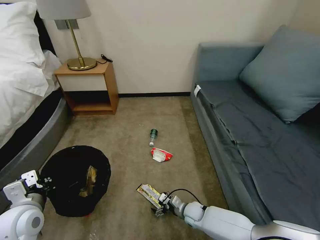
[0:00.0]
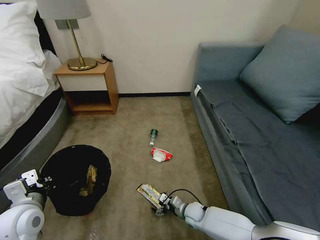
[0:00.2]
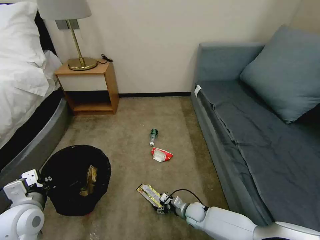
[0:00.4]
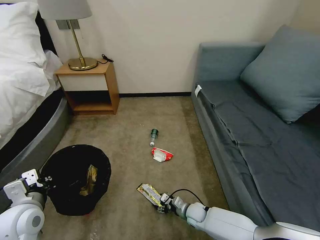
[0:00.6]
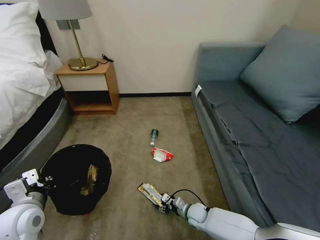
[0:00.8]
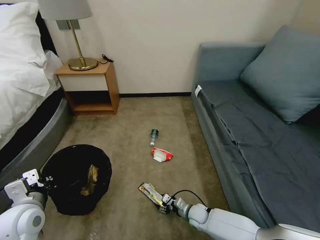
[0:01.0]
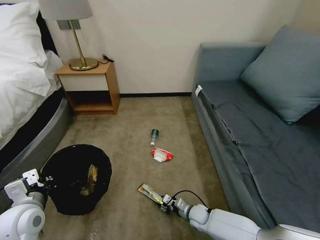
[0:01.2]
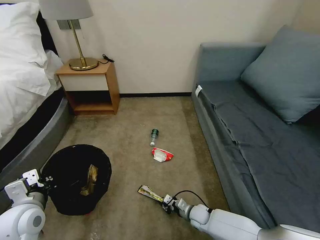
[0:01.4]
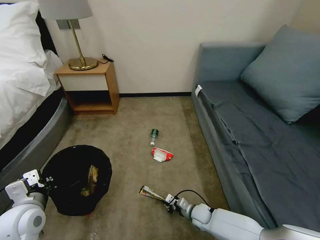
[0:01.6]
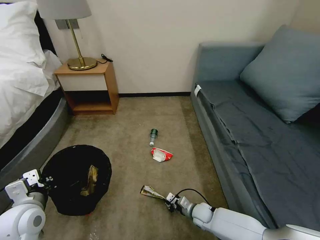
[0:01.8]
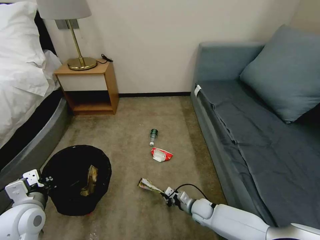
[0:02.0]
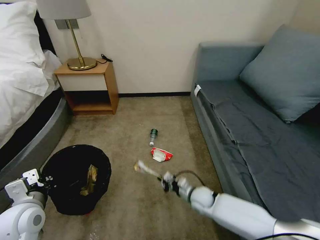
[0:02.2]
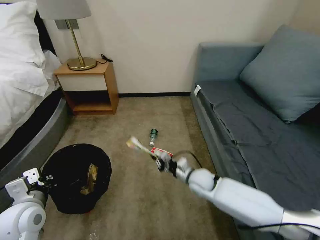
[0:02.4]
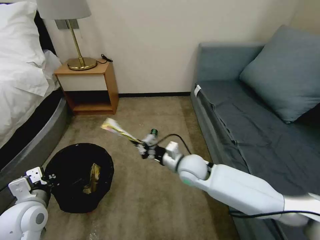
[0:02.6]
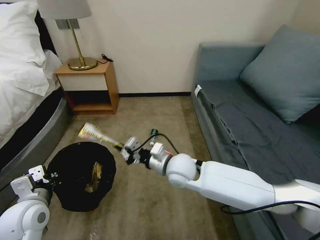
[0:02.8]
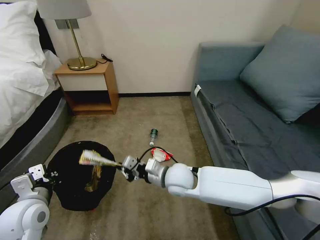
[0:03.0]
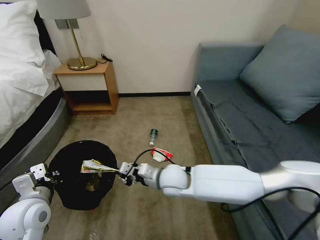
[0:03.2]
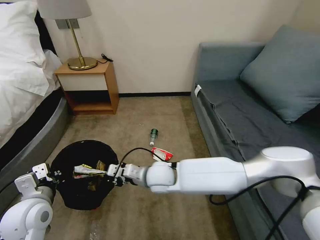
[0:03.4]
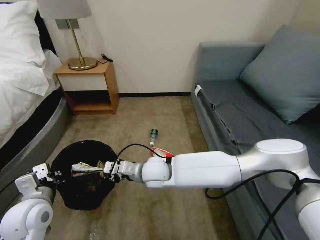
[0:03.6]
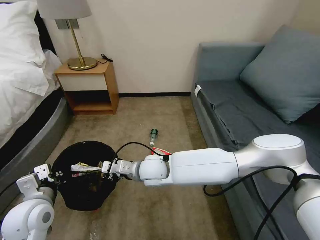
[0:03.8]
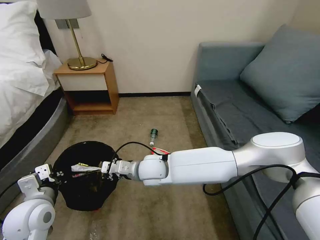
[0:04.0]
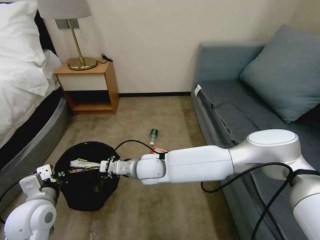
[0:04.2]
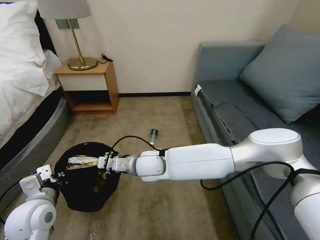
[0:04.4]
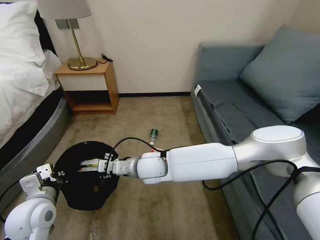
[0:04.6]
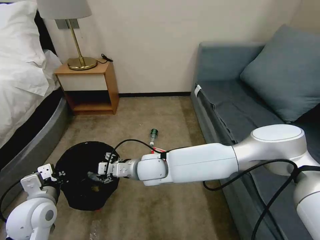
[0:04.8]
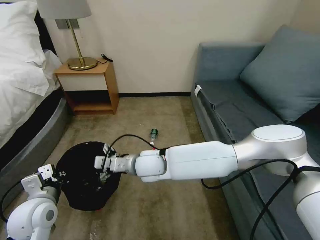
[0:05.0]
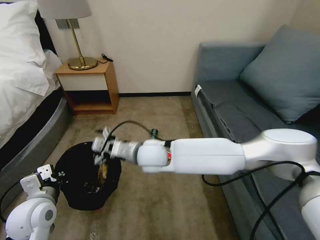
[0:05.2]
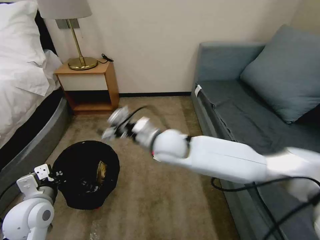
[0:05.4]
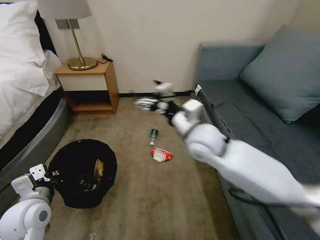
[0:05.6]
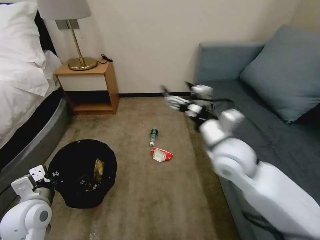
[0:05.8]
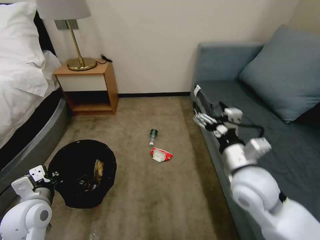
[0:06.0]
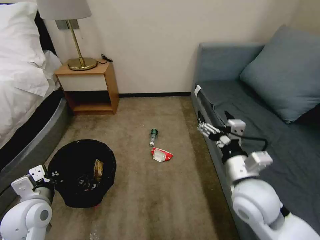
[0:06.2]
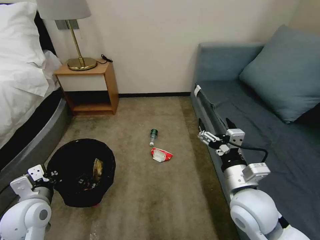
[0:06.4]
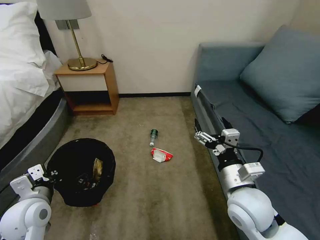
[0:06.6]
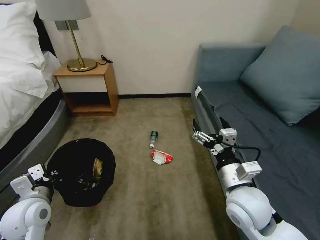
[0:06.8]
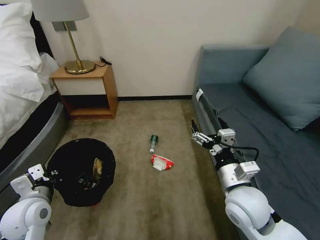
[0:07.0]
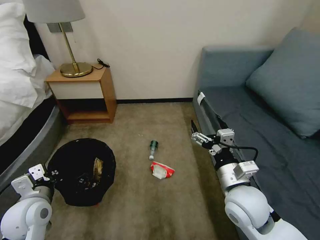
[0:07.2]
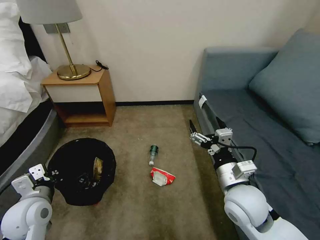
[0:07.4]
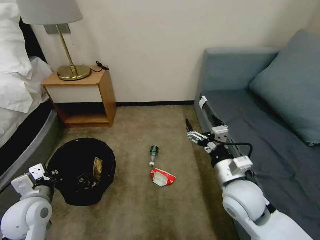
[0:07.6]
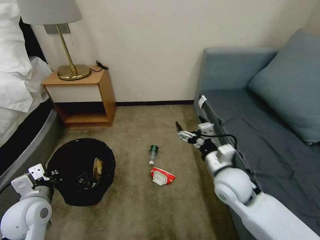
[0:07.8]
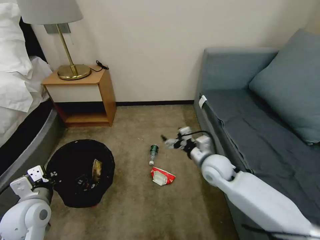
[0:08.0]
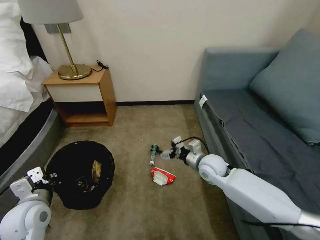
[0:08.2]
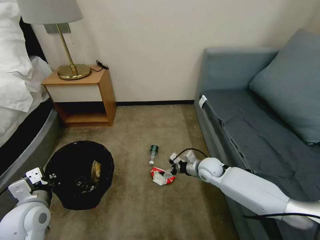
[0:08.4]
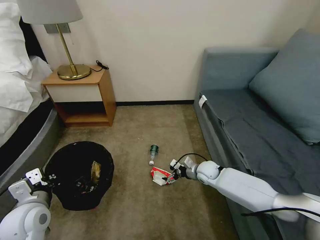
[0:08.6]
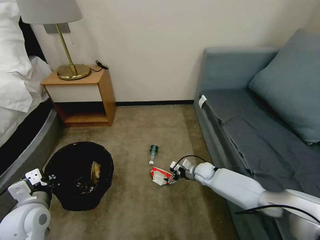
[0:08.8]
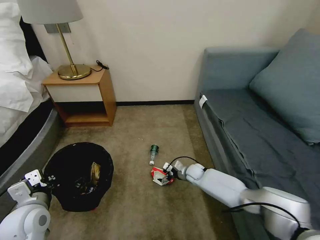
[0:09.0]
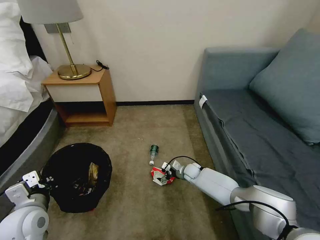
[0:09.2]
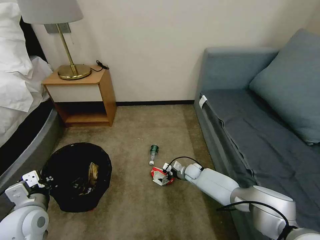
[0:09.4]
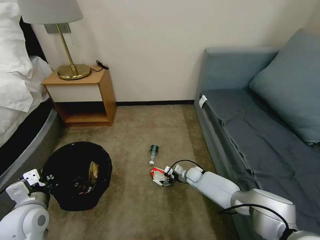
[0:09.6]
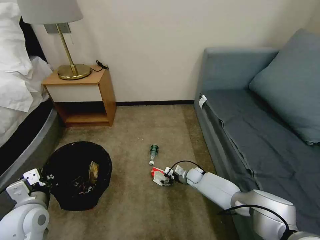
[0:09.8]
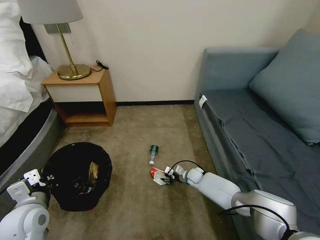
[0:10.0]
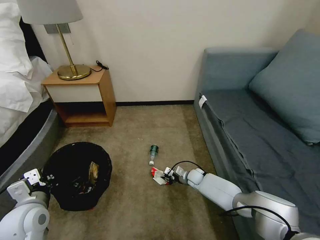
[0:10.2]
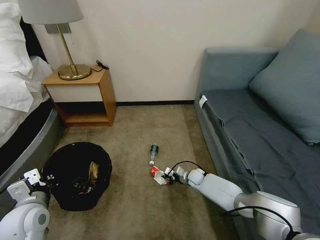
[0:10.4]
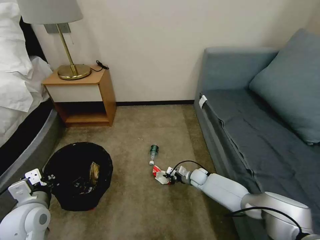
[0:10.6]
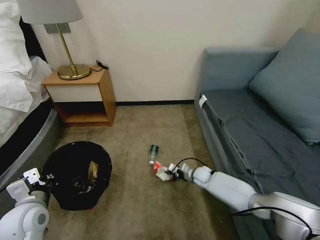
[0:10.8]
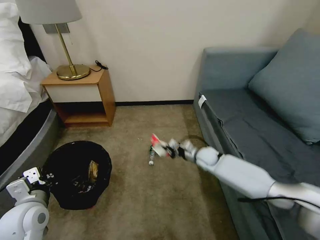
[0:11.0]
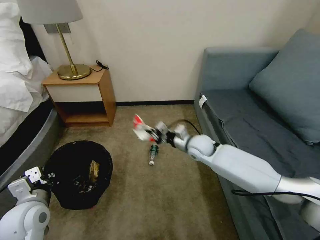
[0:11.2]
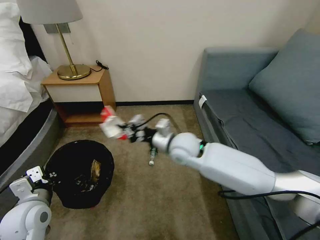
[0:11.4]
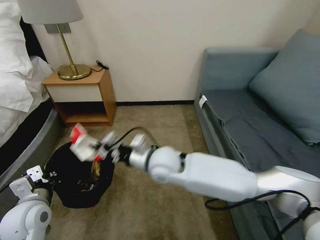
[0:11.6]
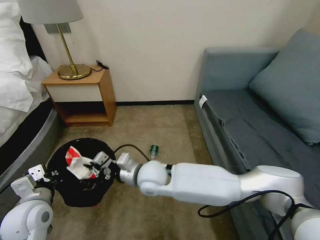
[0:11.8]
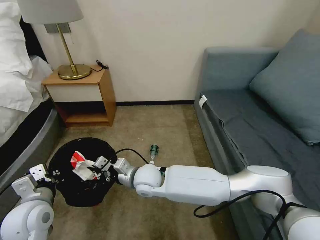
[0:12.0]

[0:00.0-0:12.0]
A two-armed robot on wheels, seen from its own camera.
Task of the whole recording: Pick up the trash bin, then pick up the garbage on the floor and place it into the trash bin.
0:00.0 to 0:01.6: The right gripper closes up.
0:01.6 to 0:03.0: The right gripper is displaced upward and to the left by approximately 30 cm.
0:03.0 to 0:04.4: The right gripper goes approximately 10 cm to the left.
0:04.4 to 0:06.0: The right gripper heads to the right and upward, covering some 25 cm, and opens.
0:06.0 to 0:07.6: The right gripper heads downward, covering roughly 5 cm.
0:07.6 to 0:09.0: The right gripper moves downward and forward, approximately 35 cm.
0:09.0 to 0:10.4: The right gripper closes.
0:10.4 to 0:12.0: The right gripper is displaced to the left, upward and backward by some 35 cm.

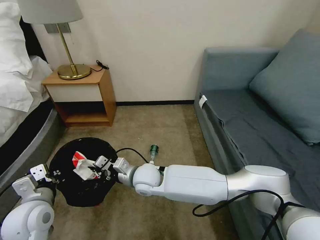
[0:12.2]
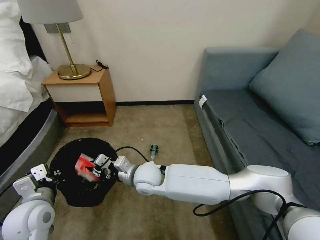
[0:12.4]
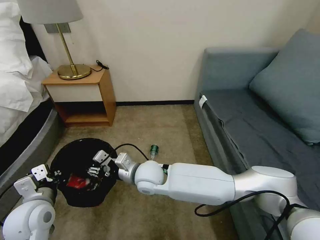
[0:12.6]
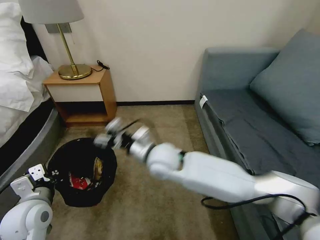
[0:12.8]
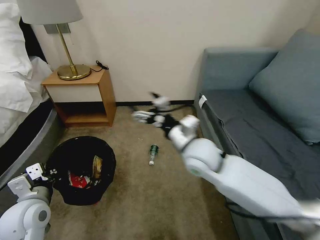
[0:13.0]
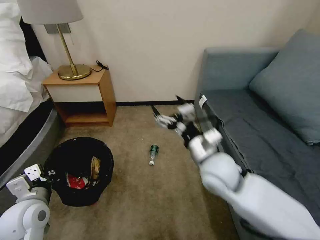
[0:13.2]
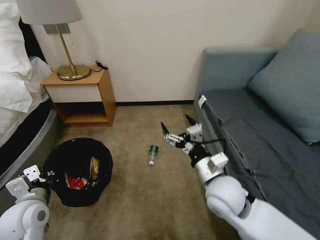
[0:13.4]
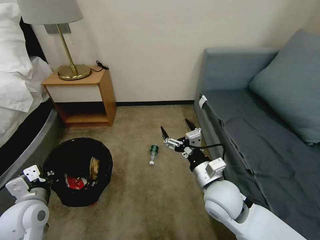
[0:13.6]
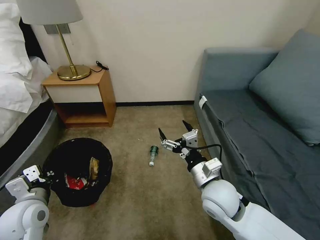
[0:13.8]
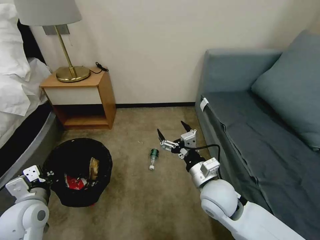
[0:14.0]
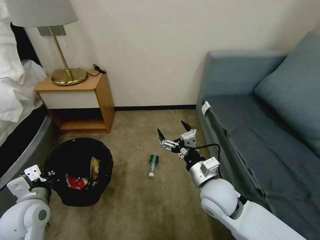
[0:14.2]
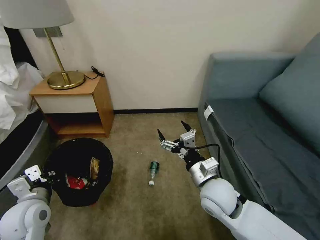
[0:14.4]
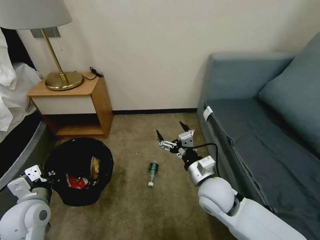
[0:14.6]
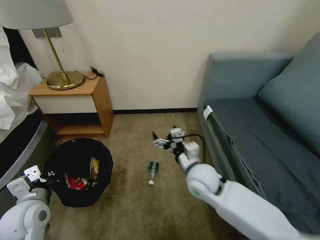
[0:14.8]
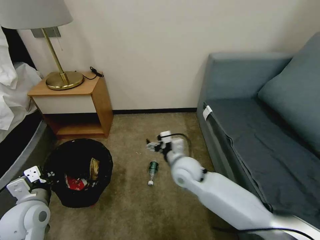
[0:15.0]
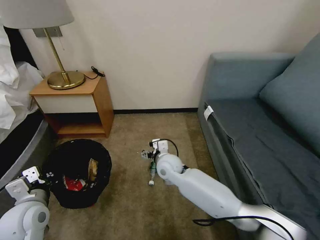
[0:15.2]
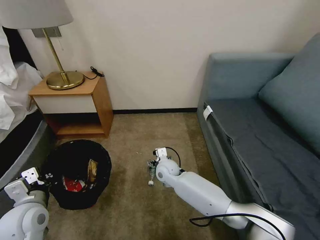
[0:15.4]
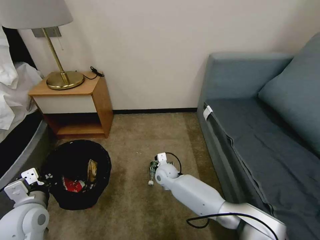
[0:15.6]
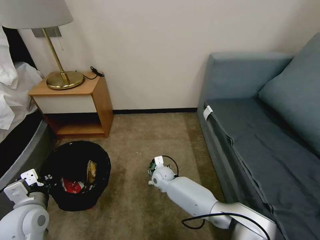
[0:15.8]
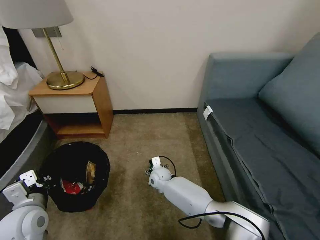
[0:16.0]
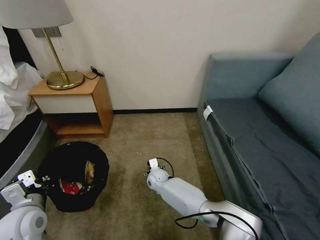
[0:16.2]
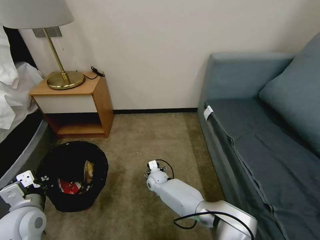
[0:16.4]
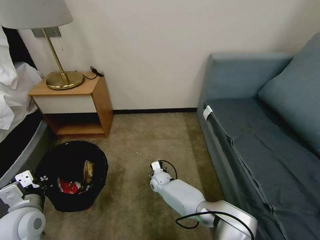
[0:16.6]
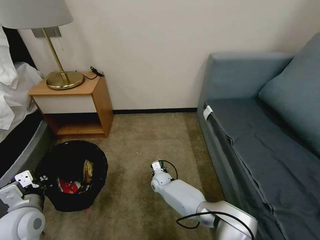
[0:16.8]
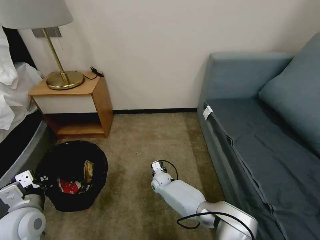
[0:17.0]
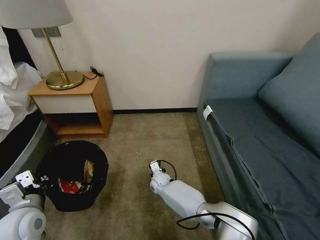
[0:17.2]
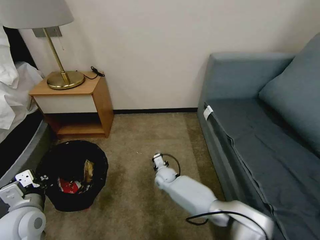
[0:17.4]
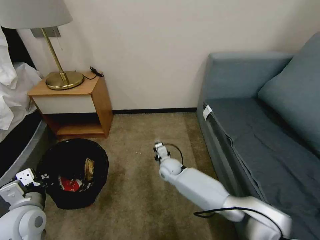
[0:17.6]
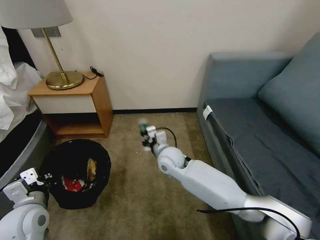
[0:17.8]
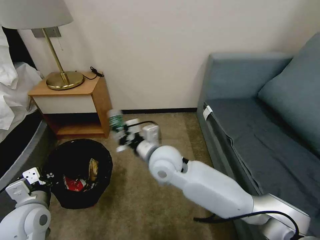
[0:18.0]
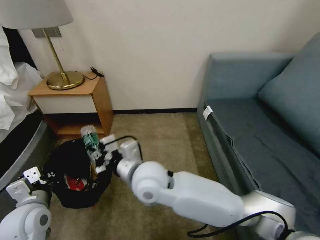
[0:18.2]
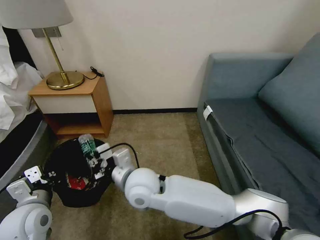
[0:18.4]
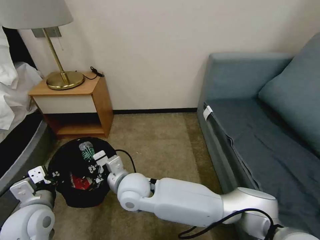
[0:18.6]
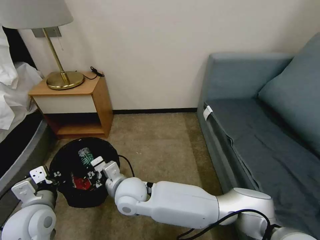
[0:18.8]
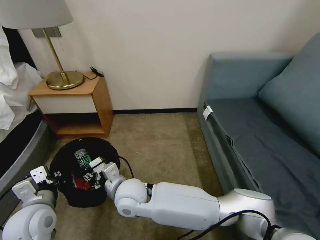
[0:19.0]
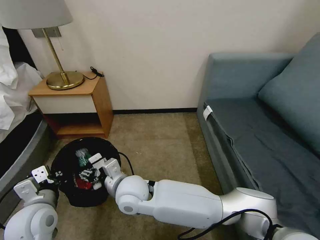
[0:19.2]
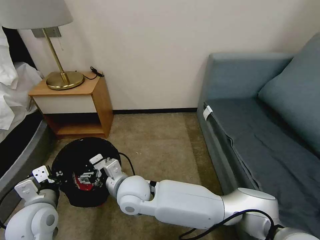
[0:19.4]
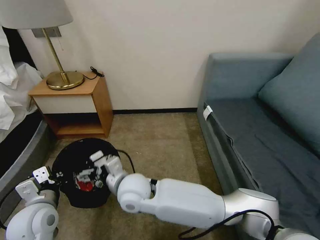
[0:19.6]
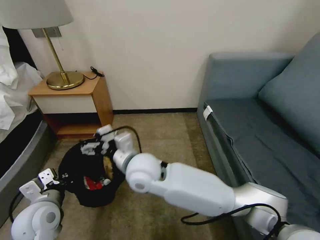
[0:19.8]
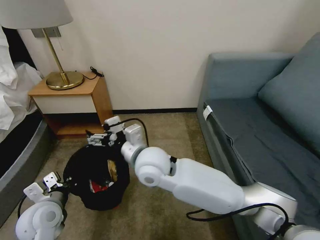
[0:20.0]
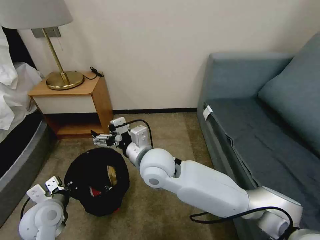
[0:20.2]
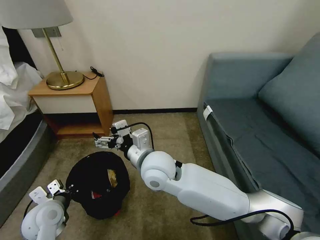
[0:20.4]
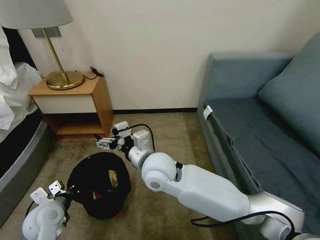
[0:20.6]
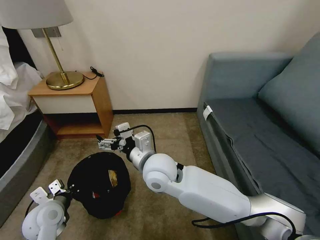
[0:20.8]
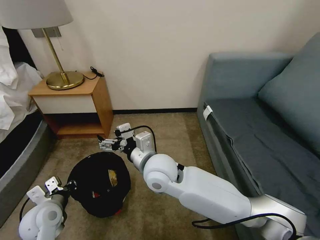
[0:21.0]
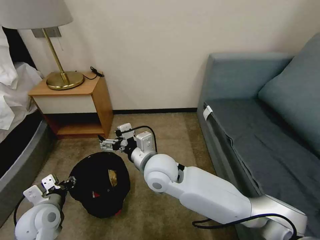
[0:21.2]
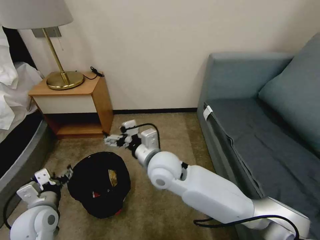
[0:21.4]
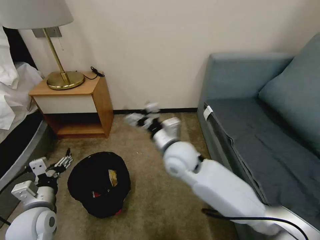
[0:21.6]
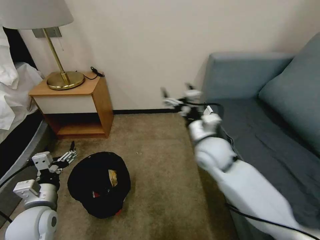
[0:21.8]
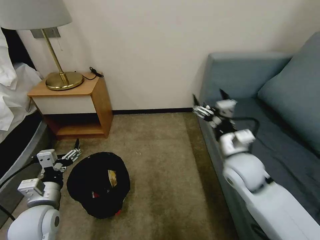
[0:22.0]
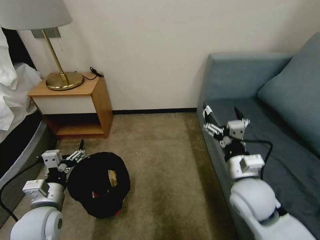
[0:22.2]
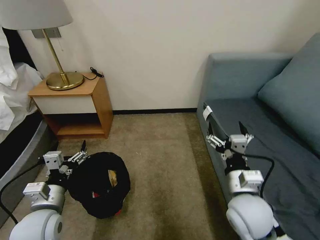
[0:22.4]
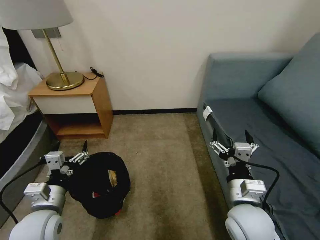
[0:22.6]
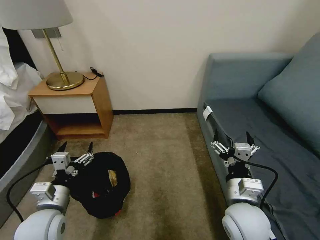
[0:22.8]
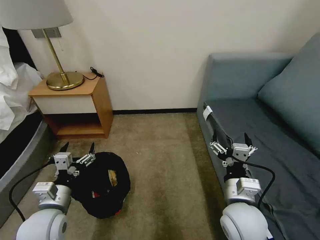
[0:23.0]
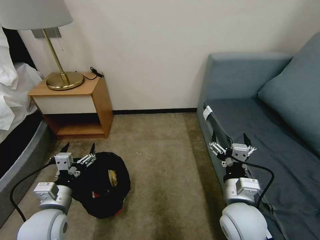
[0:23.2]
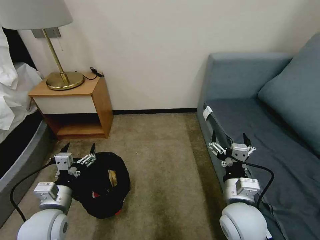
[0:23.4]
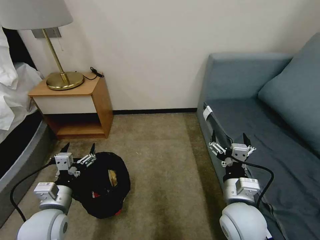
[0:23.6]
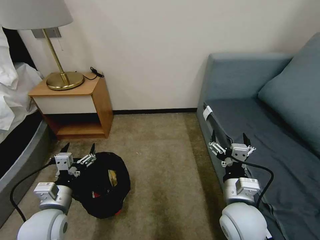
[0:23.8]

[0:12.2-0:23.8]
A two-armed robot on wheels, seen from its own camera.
Task of the whole recording: Pick up the trash bin, then pick up the garbage on the floor and place it into the trash bin.
0:12.2 to 0:13.6: The right gripper shifts approximately 25 cm to the right and backward, and opens its fingers.
0:13.6 to 0:15.0: The right gripper heads forward and to the left, covering some 10 cm.
0:15.0 to 0:16.6: The right gripper moves downward, approximately 25 cm.
0:16.6 to 0:18.0: The right gripper goes some 30 cm upward, and closes up.
0:18.0 to 0:19.4: The right gripper goes about 15 cm to the left, downward and backward, and opens its fingers.
0:19.4 to 0:21.0: The right gripper heads to the right and upward, covering roughly 10 cm. Meanwhile the left gripper moves downward, approximately 5 cm.
0:21.0 to 0:22.4: The right gripper shifts roughly 25 cm to the right and backward; the left gripper ends up some 5 cm from where it was, and opens its fingers.
0:22.4 to 0:23.8: The grippers move only a little.
